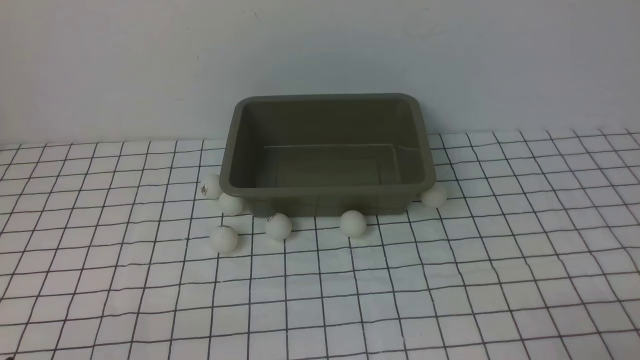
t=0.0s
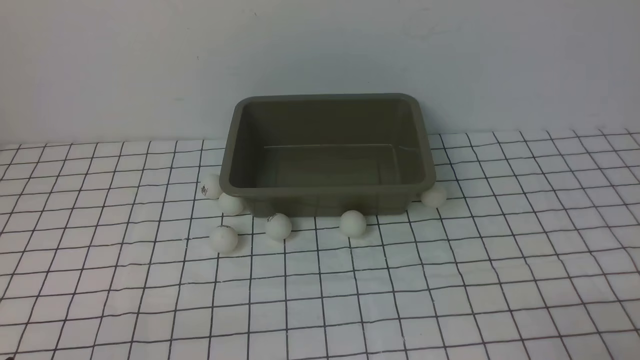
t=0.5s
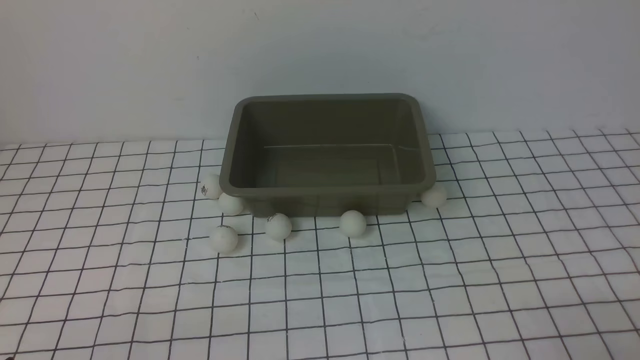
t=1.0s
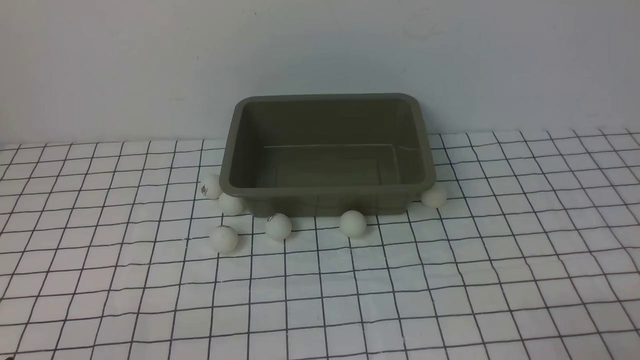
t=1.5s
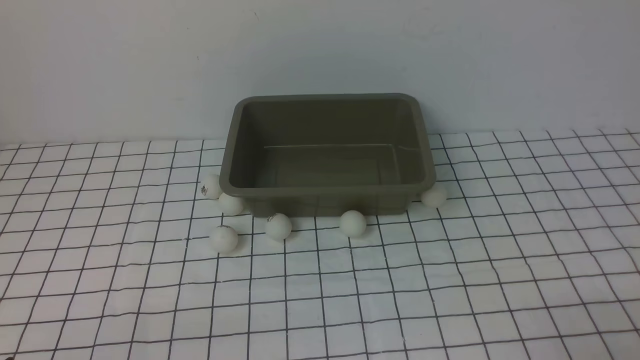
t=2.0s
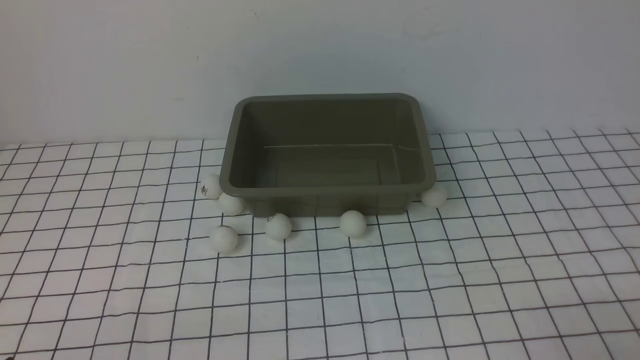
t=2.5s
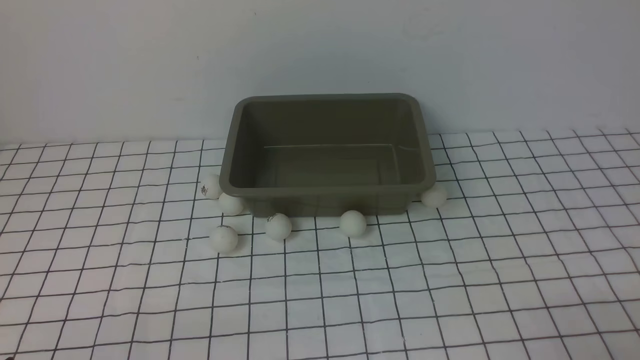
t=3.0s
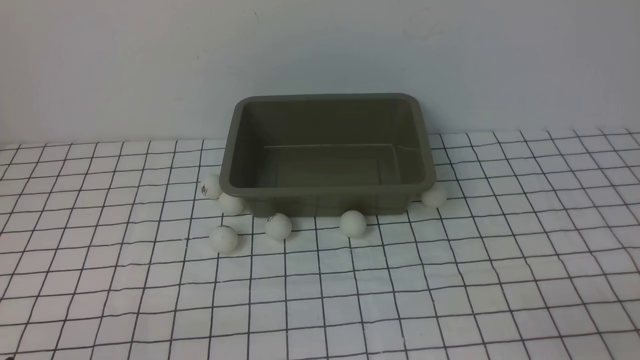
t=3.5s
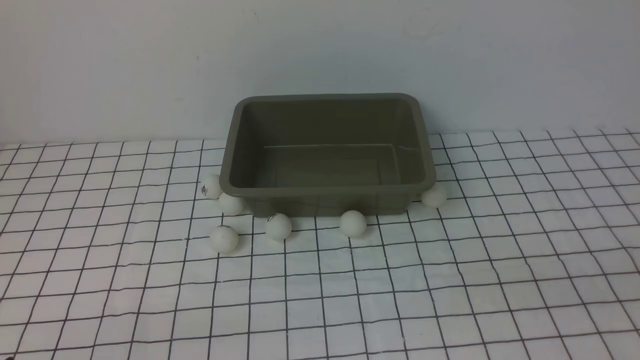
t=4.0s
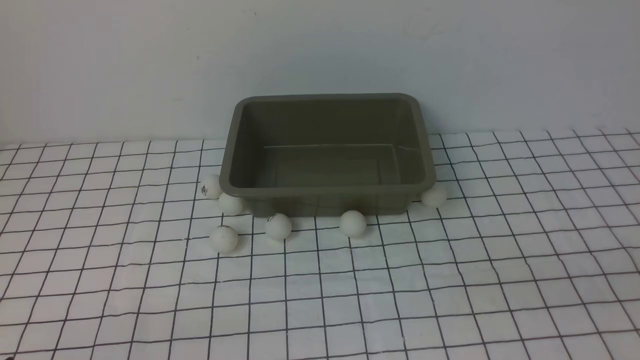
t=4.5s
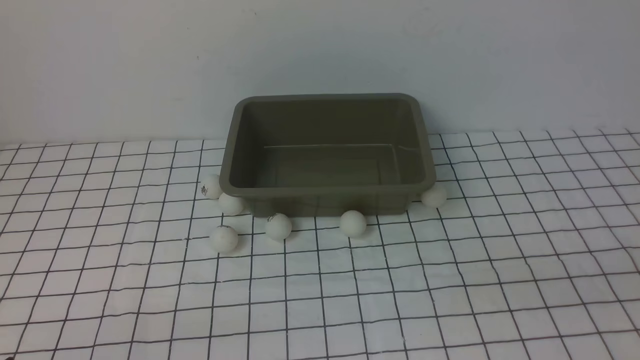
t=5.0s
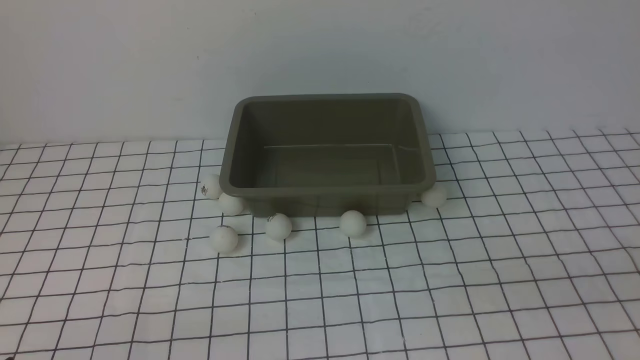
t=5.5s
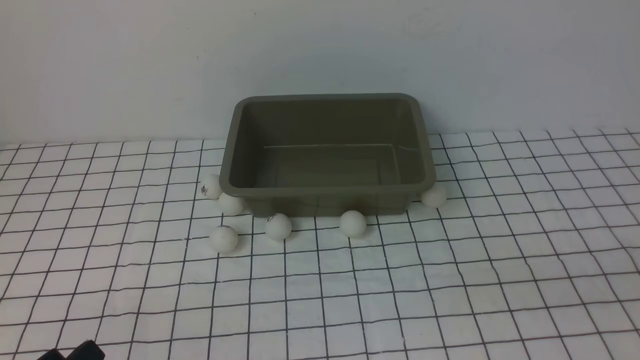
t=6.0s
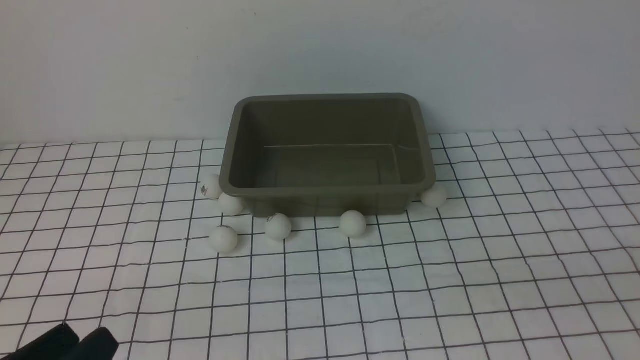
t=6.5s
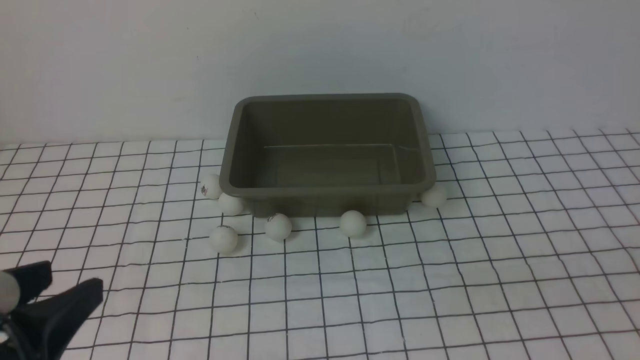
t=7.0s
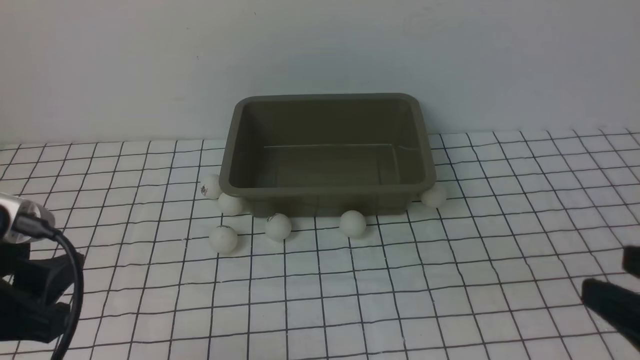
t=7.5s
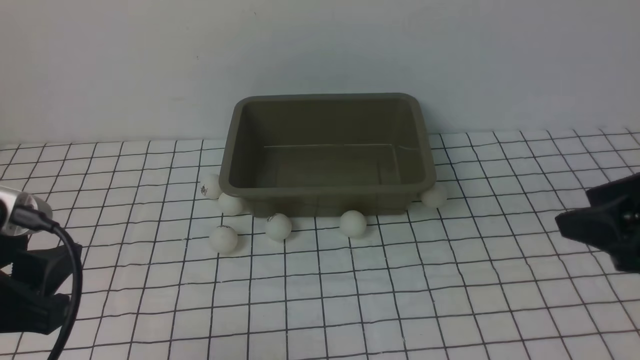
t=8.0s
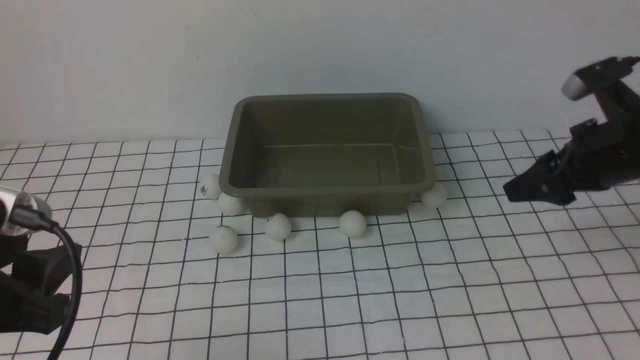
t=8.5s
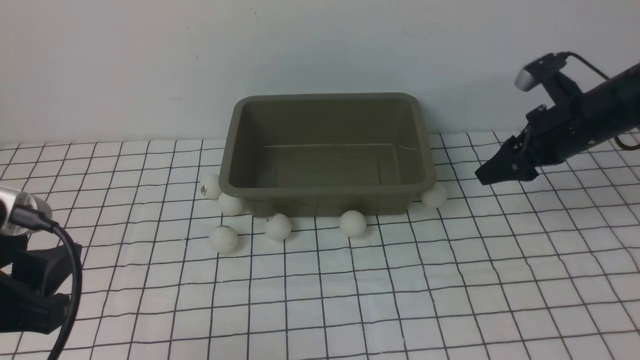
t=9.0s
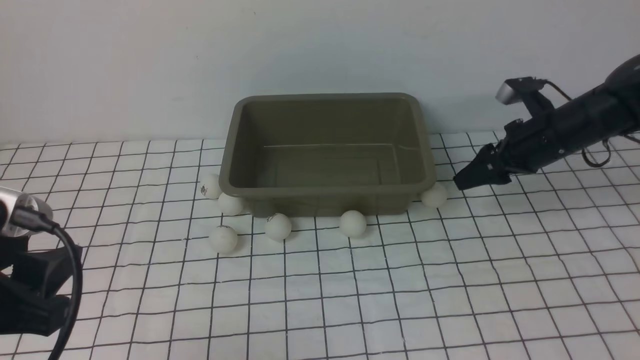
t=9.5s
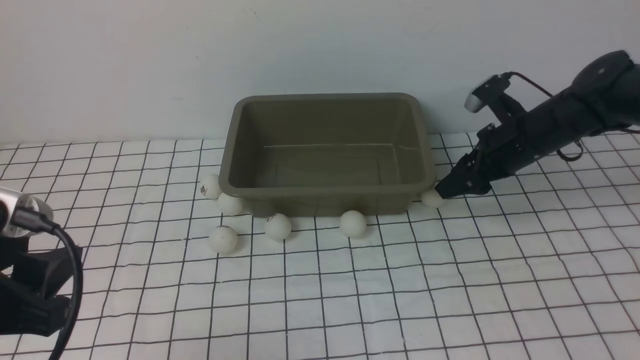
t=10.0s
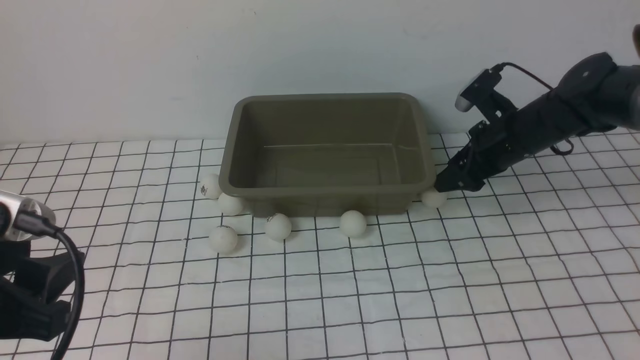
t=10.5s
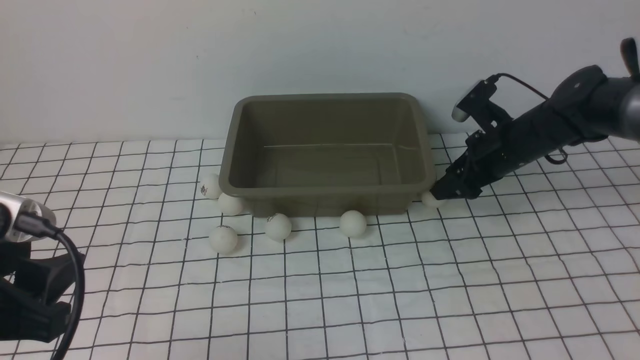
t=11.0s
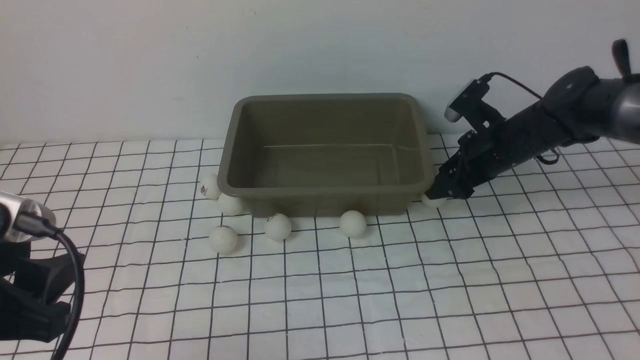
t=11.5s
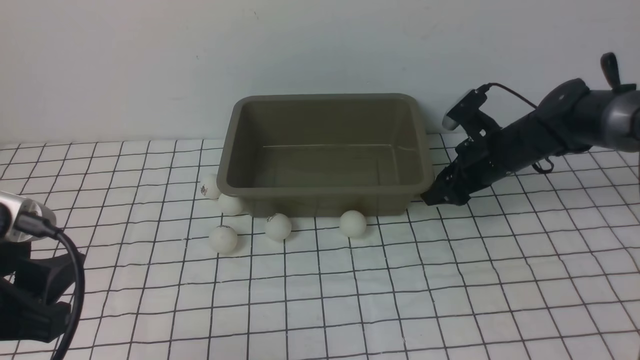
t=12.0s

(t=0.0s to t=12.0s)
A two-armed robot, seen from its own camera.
t=0.0s - t=2.0s: Neither gripper changes place.
t=6.0s - t=8.0s: The left gripper heads upward and forward, covering approximately 15 cm, while the right gripper shifts roughly 15 cm forward.
t=8.0s - t=10.0s: The right gripper goes some 30 cm forward and downward.
t=10.0s - t=12.0s: The right gripper changes place by approximately 5 cm.

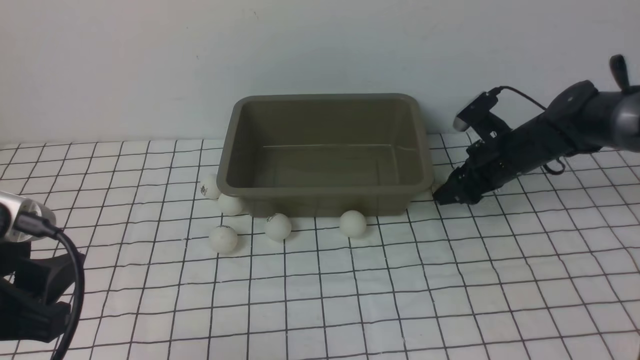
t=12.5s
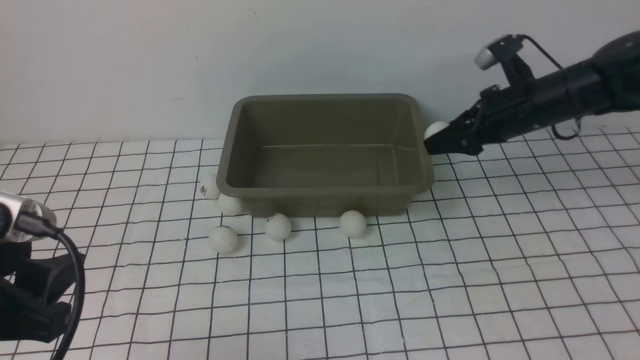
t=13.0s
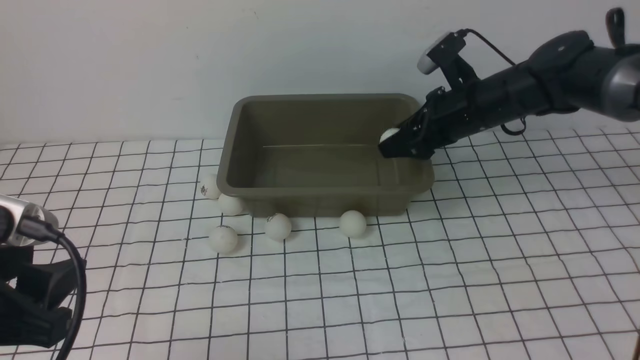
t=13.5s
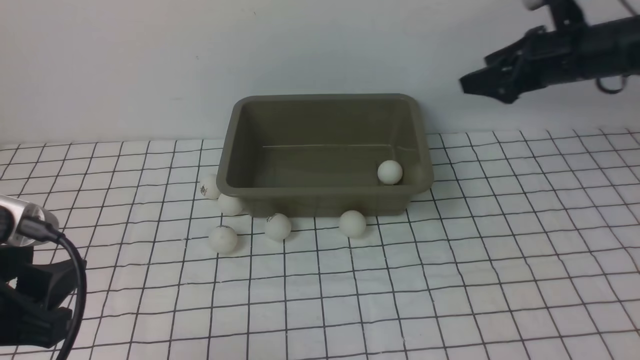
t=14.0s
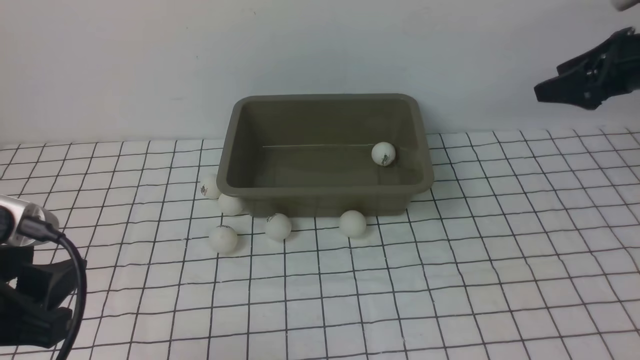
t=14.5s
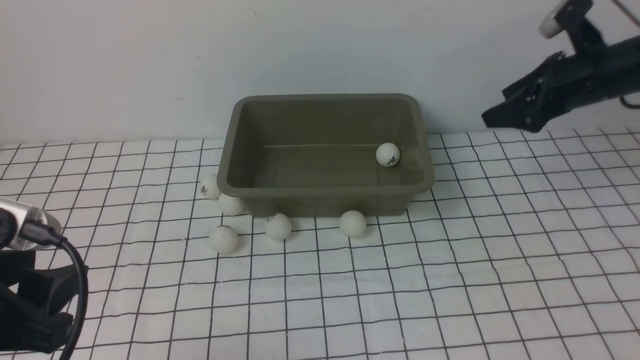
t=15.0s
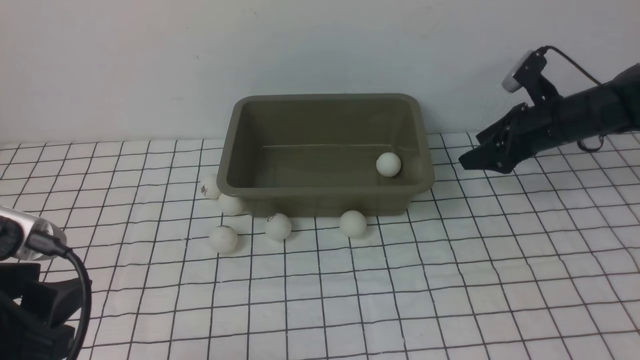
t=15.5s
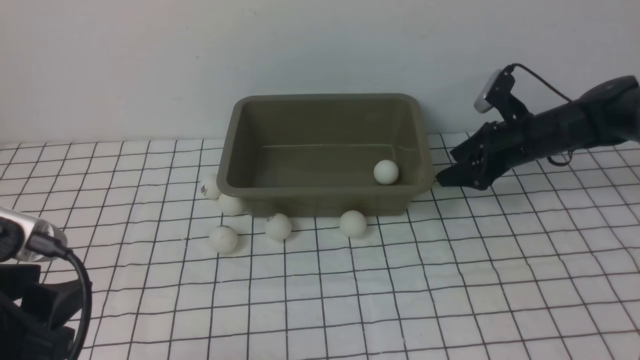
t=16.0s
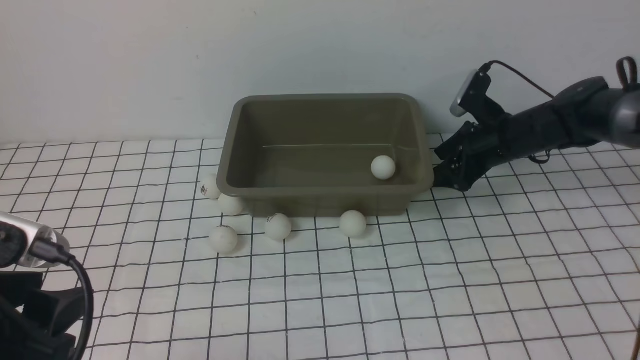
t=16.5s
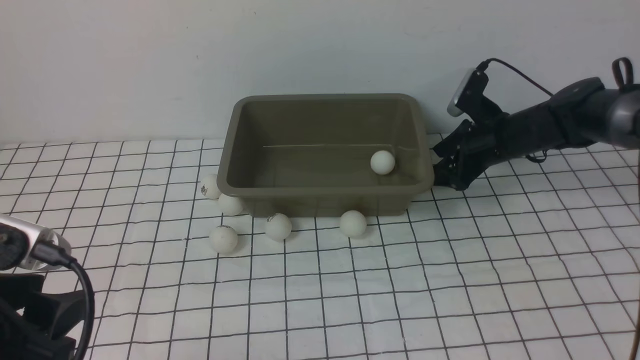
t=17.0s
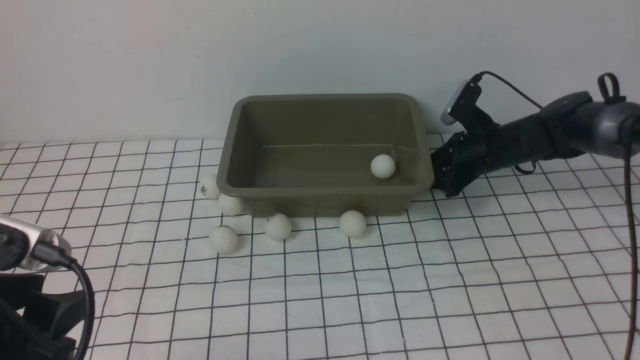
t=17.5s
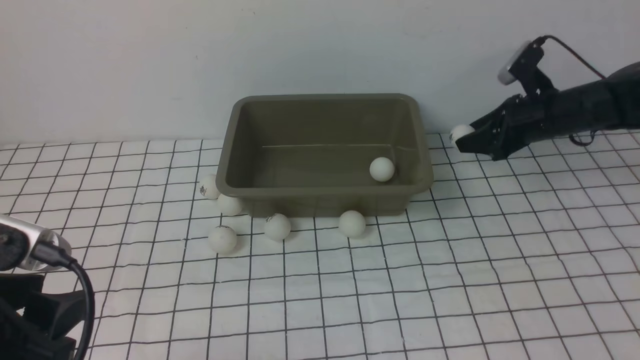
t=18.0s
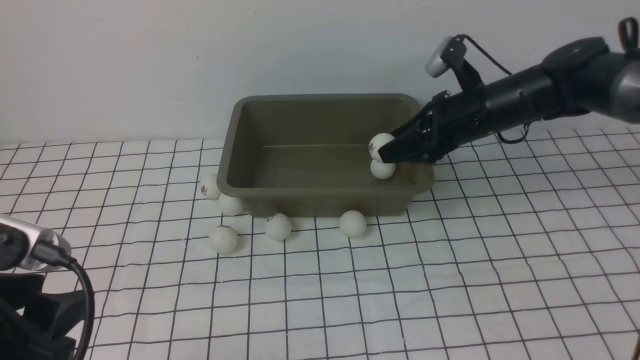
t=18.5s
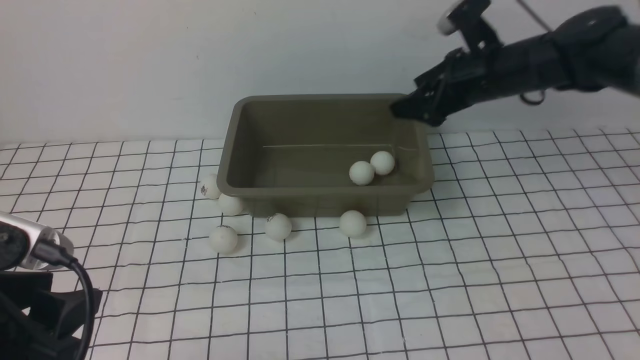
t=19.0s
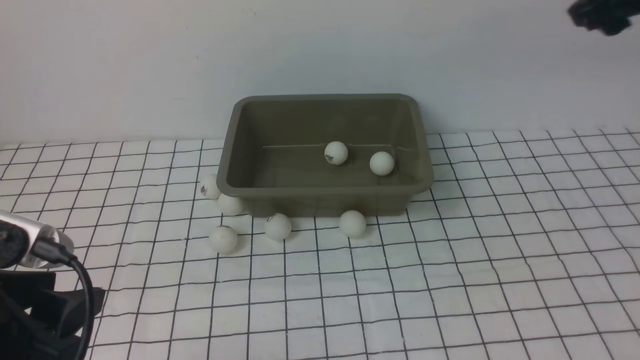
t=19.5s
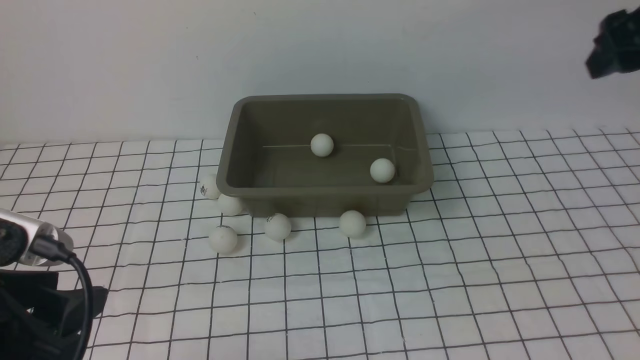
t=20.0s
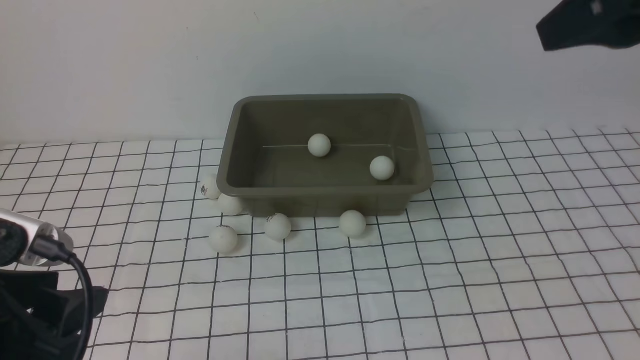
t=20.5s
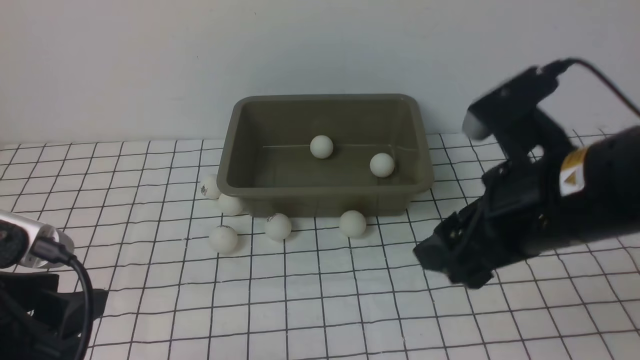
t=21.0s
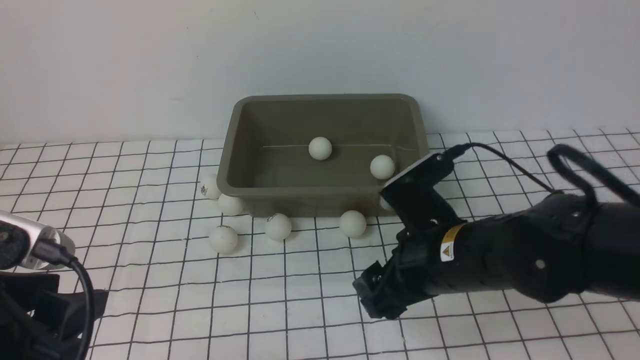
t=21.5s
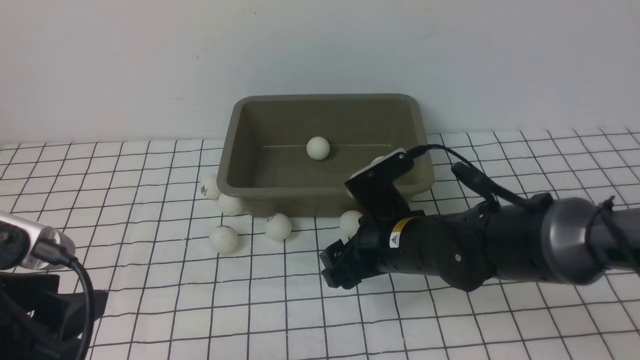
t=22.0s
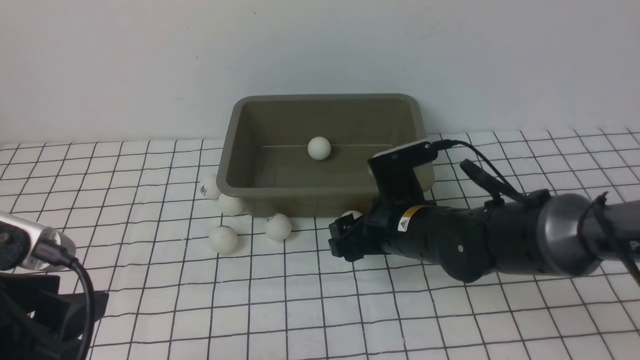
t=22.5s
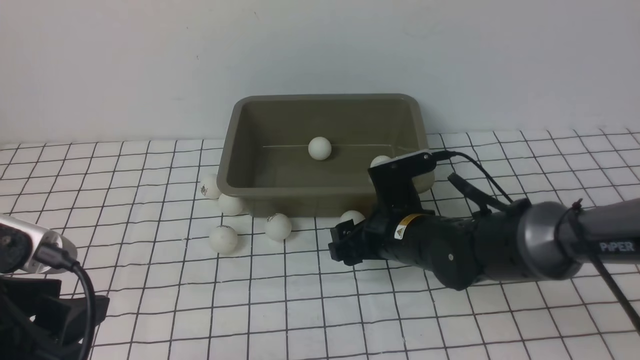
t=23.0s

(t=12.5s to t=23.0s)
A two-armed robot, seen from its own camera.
Step, t=13.0s - t=13.5s: use the right arm to put the table tennis ball into the box.
Step, t=14.0s - t=18.0s: use the right arm to clamp the table tennis ball closest to it.
t=12.5s - t=14.5s: The right gripper heads upward and to the right, covering roughly 15 cm, and opens.
t=14.5s - t=16.5s: The right gripper travels downward and to the left by some 20 cm.
t=16.5s - t=19.0s: The right gripper heads upward, covering roughly 15 cm, and closes and opens again.
t=19.0s - t=21.0s: The right gripper travels backward by approximately 25 cm.
t=21.0s - t=23.0s: The right gripper shifts approximately 25 cm downward, forward and to the left.
